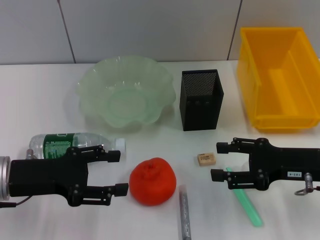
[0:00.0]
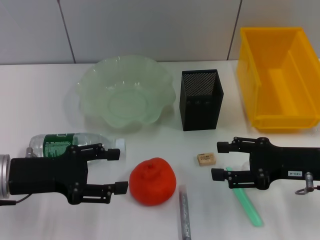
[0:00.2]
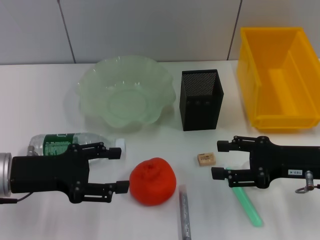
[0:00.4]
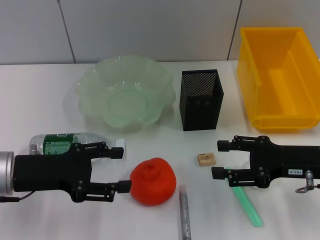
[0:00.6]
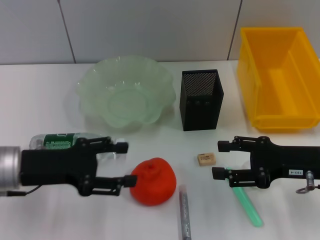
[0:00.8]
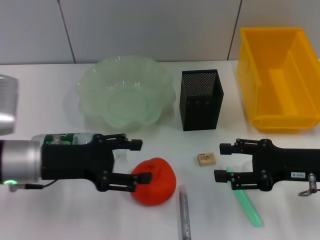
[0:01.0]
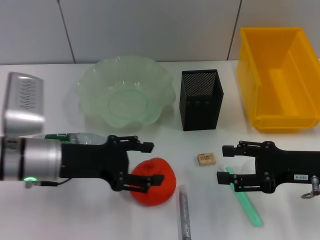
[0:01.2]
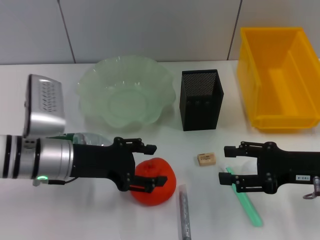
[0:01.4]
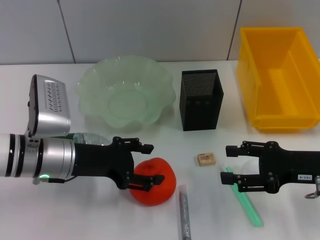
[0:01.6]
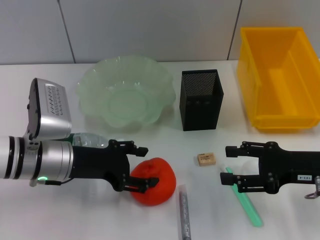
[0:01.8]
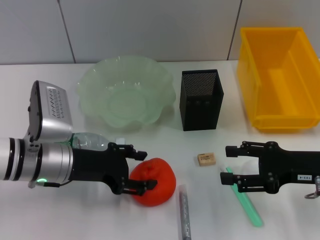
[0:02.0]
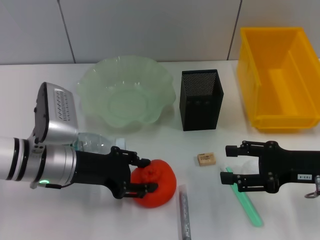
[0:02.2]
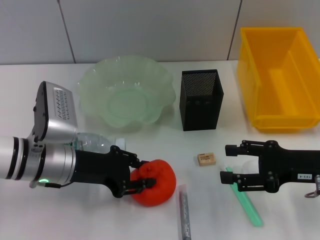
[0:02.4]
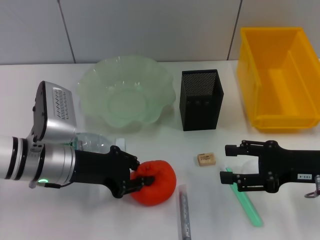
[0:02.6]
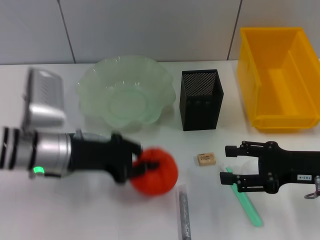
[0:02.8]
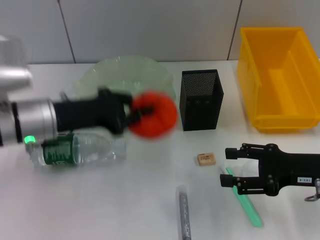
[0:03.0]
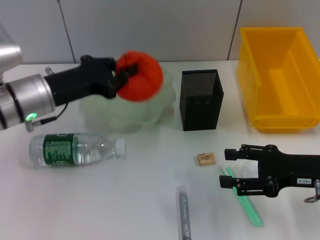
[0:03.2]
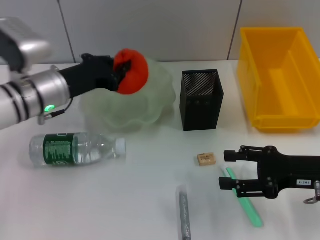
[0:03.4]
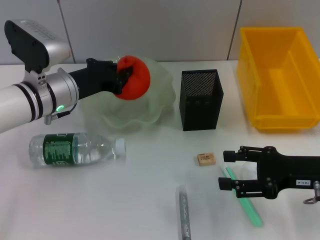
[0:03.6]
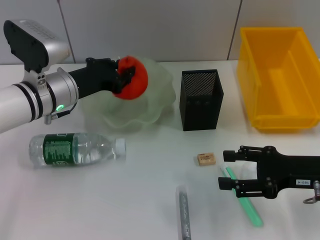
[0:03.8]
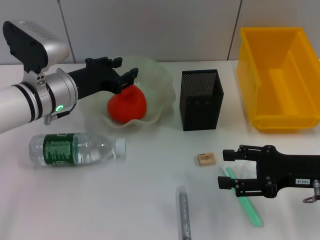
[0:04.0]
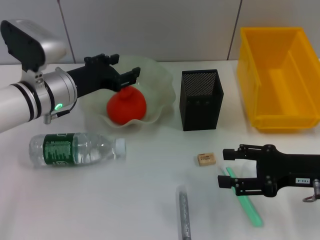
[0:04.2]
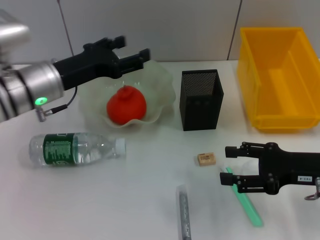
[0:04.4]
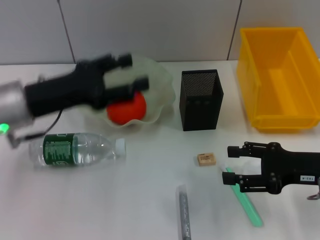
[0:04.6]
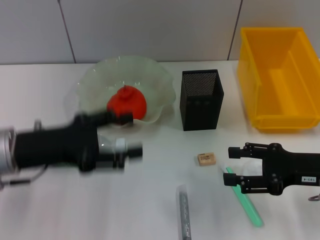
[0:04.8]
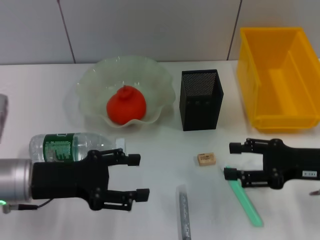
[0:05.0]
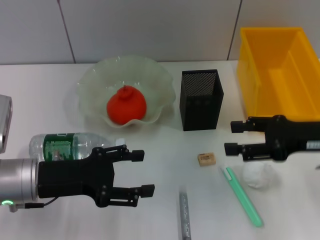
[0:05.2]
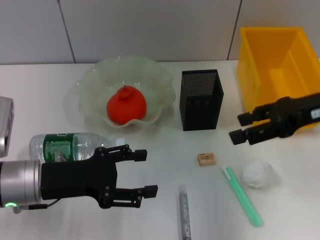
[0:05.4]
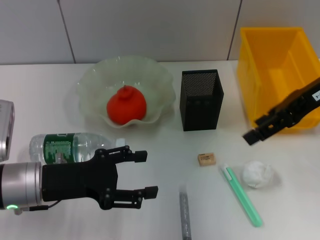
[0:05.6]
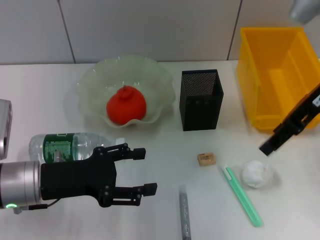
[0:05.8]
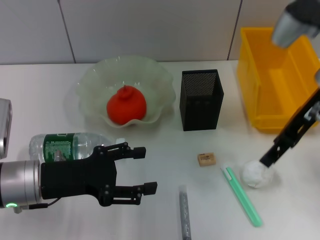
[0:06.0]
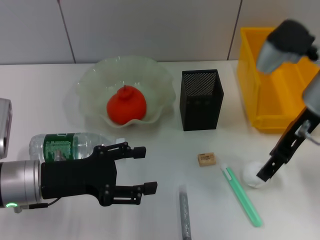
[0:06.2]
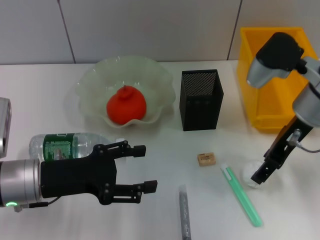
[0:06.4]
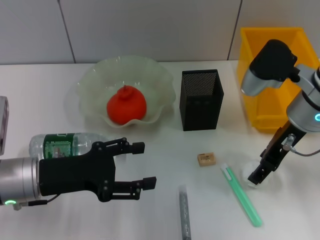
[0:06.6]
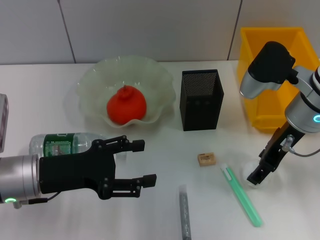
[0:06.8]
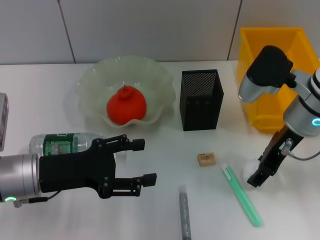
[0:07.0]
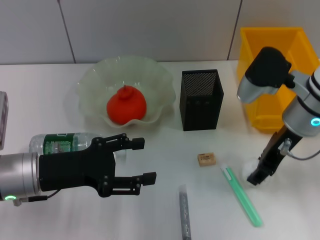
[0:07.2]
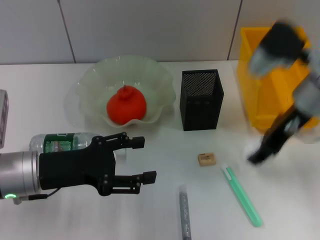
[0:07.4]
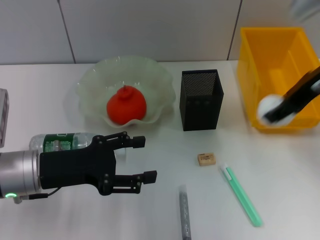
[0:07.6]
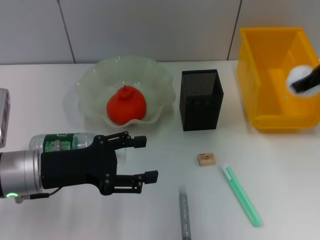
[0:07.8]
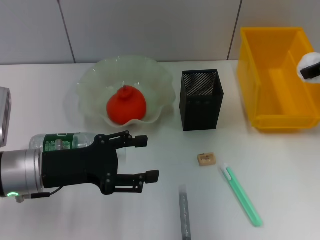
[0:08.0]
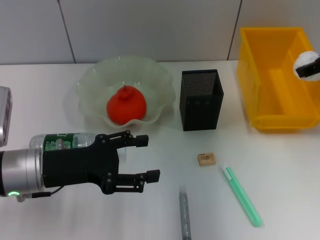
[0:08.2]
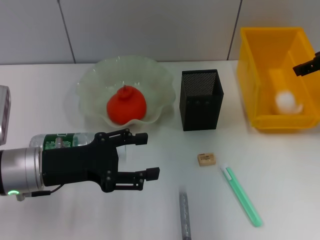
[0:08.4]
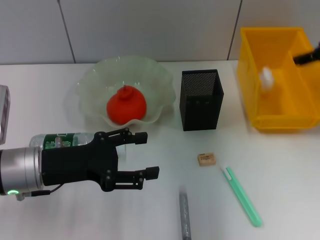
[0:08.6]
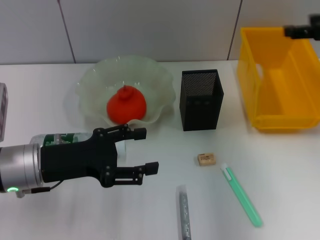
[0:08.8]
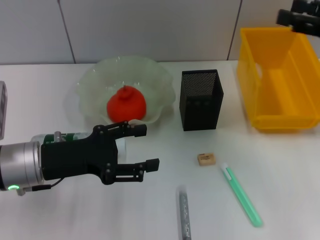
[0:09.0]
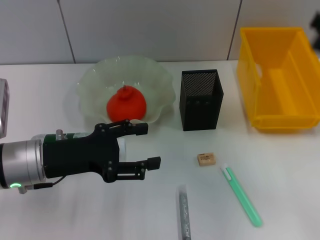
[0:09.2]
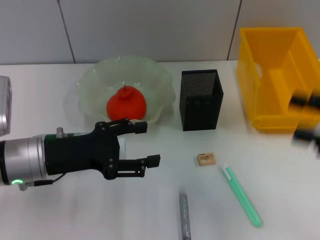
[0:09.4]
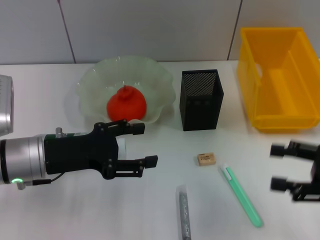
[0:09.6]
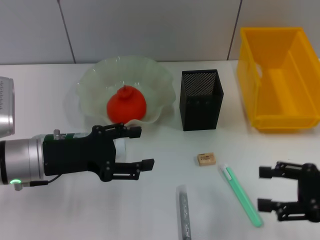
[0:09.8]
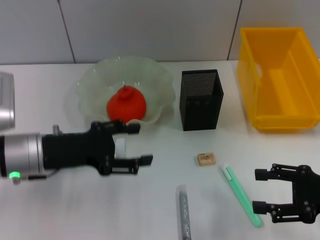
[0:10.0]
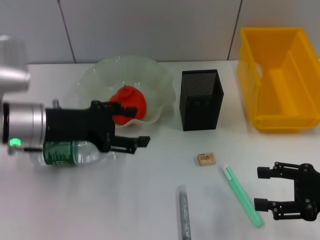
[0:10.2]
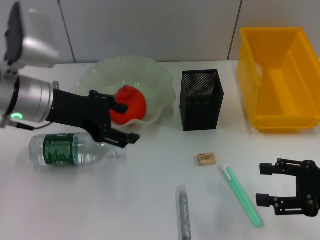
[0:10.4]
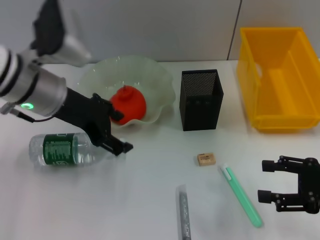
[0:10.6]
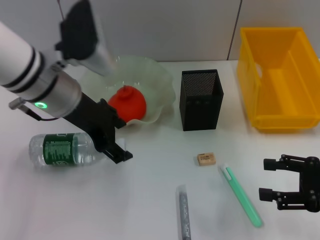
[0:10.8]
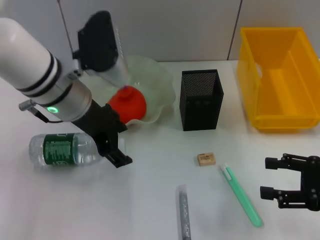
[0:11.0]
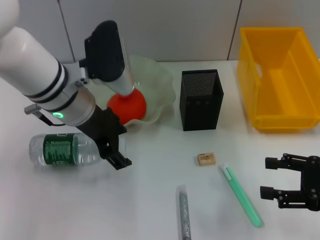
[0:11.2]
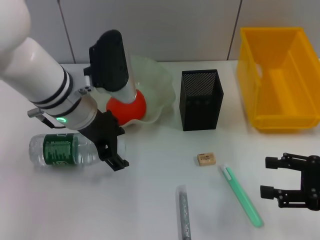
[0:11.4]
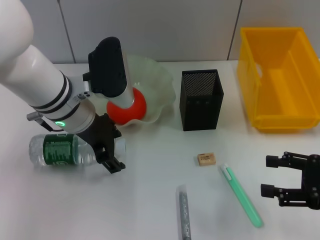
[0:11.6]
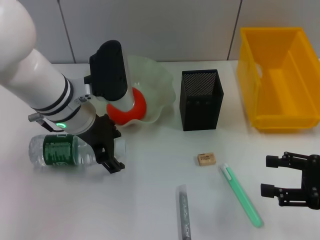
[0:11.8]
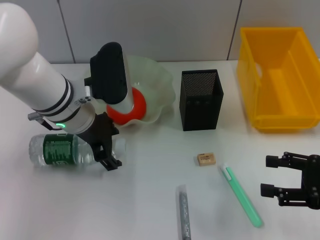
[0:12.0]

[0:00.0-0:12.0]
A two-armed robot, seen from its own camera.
Step, 0:00.0 to 0:02.4: Grab the orange with the left hand.
Step, 0:02.8 to 0:04.0: Place the orange into the fruit bowl with the left hand.
Step, 0:04.4 to 0:07.0: Grab the paper ball with the right hand.
Step, 0:07.2 to 0:09.0: Place the paper ball into the trash can with the right hand.
0:00.0 to 0:01.6: The left gripper is displaced to the right by some 5 cm.
0:01.6 to 0:03.0: The left gripper moves some 5 cm, and closes.
0:03.0 to 0:04.4: The left gripper opens up.
0:04.4 to 0:06.0: The left gripper travels backward and downward by some 10 cm. The right gripper moves upward, forward and to the left, approximately 15 cm.
0:06.0 to 0:07.6: The right gripper closes.
0:07.6 to 0:09.0: The right gripper heads to the right, covering approximately 10 cm, and opens up.
0:09.0 to 0:10.4: The left gripper shifts approximately 10 cm forward and upward; the right gripper heads downward and backward, covering about 15 cm.
0:10.4 to 0:12.0: The left gripper is displaced to the right by some 5 cm.

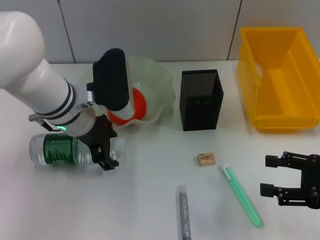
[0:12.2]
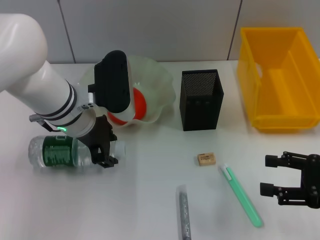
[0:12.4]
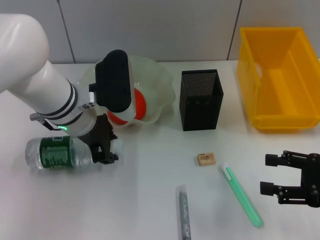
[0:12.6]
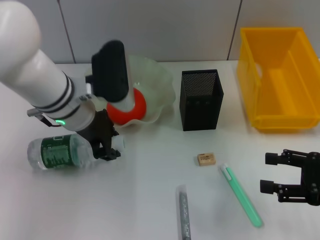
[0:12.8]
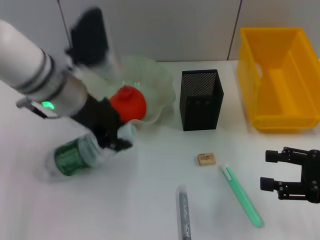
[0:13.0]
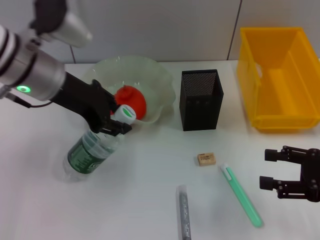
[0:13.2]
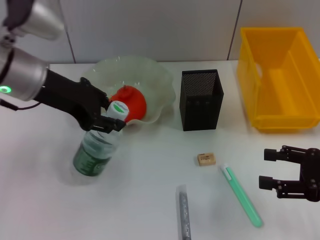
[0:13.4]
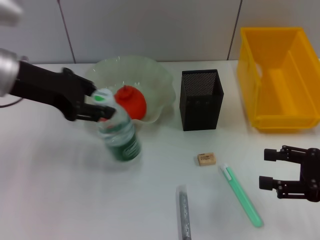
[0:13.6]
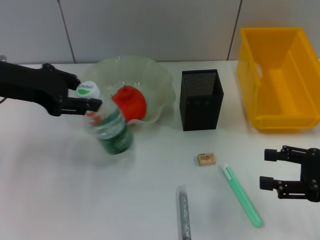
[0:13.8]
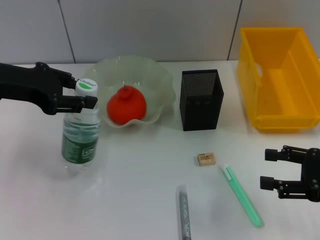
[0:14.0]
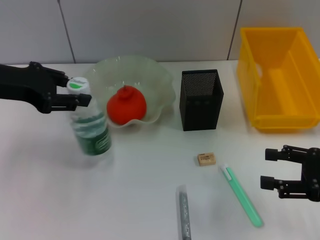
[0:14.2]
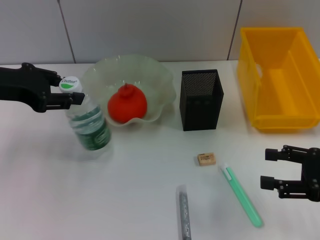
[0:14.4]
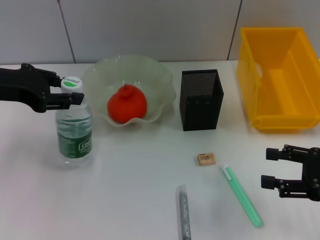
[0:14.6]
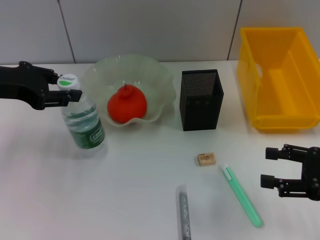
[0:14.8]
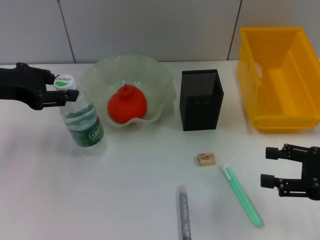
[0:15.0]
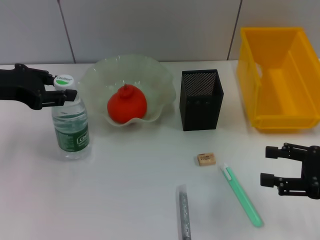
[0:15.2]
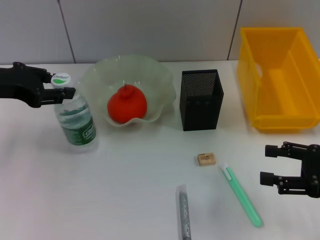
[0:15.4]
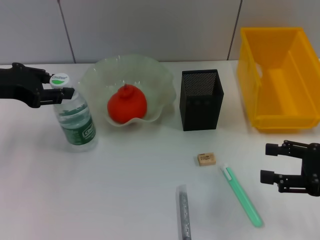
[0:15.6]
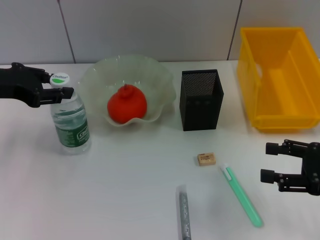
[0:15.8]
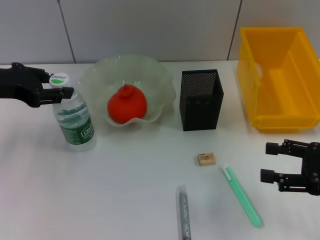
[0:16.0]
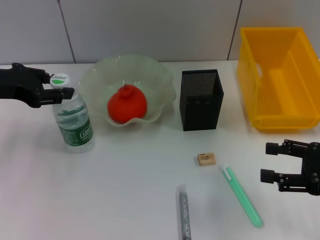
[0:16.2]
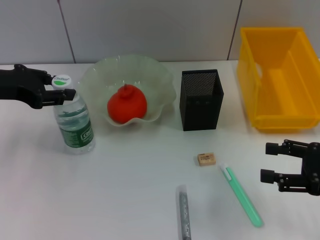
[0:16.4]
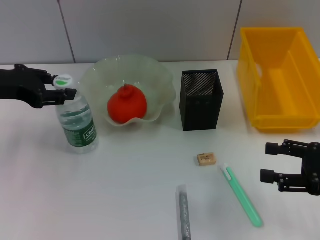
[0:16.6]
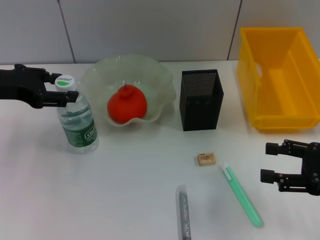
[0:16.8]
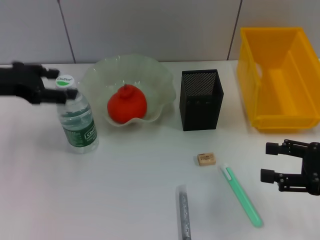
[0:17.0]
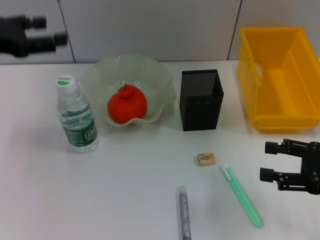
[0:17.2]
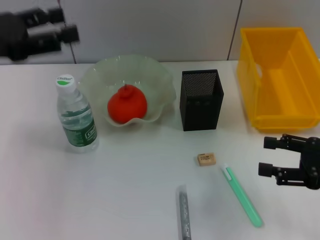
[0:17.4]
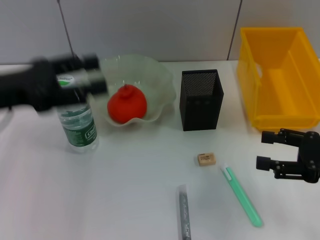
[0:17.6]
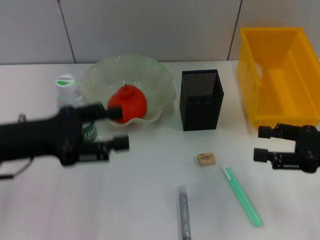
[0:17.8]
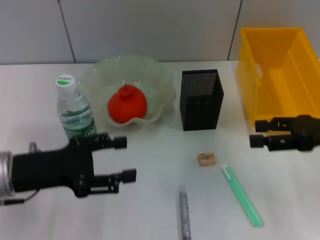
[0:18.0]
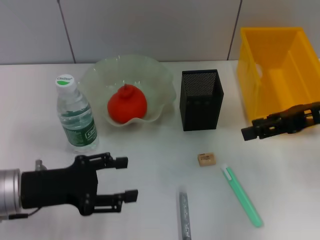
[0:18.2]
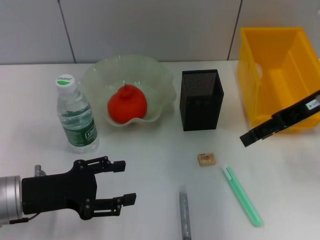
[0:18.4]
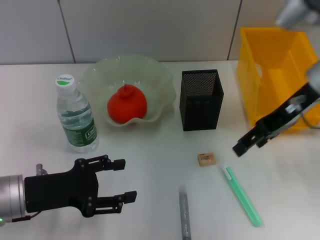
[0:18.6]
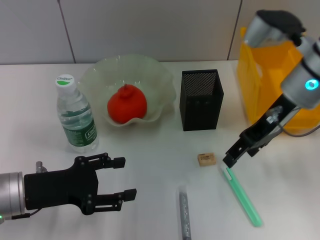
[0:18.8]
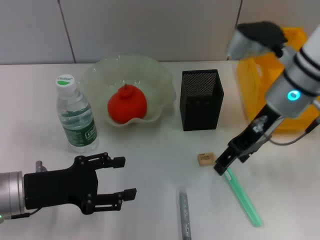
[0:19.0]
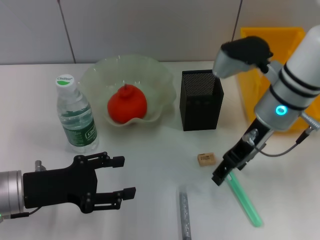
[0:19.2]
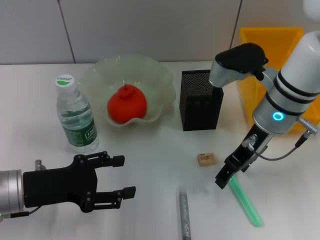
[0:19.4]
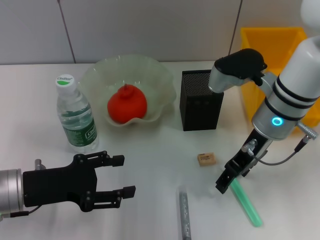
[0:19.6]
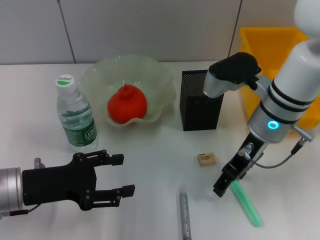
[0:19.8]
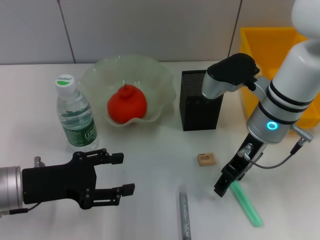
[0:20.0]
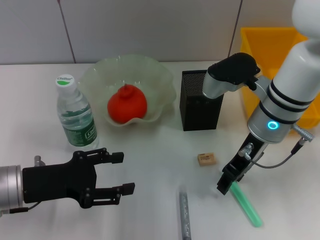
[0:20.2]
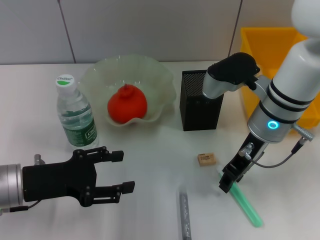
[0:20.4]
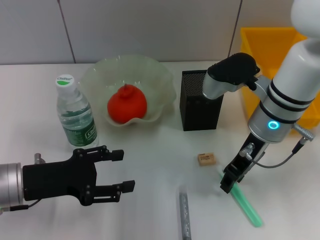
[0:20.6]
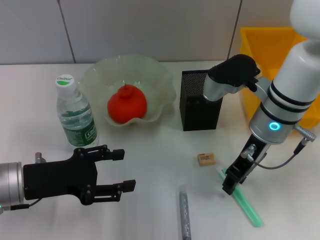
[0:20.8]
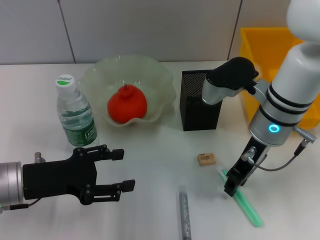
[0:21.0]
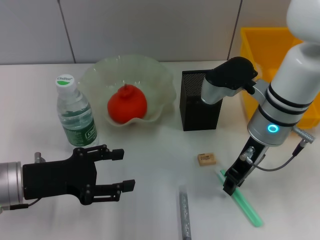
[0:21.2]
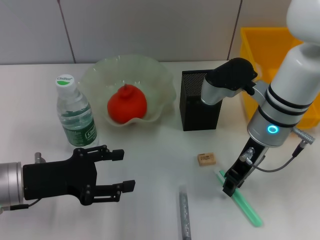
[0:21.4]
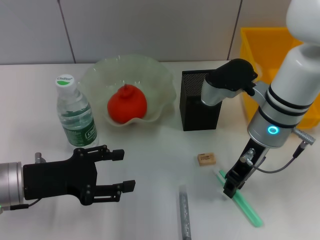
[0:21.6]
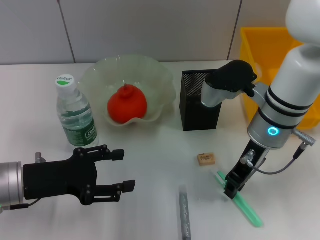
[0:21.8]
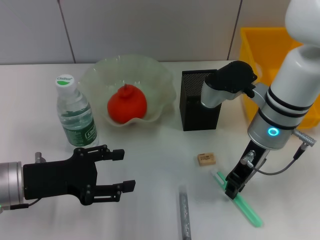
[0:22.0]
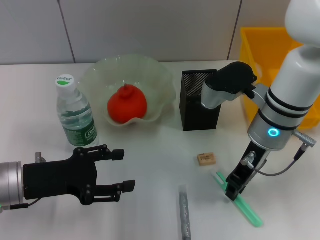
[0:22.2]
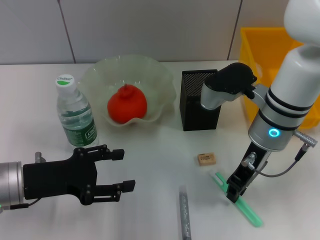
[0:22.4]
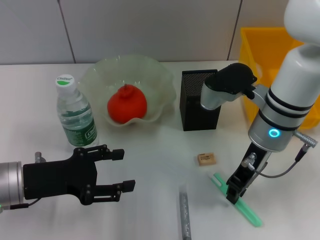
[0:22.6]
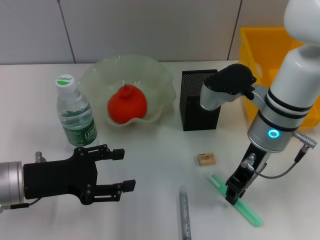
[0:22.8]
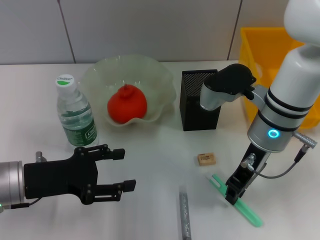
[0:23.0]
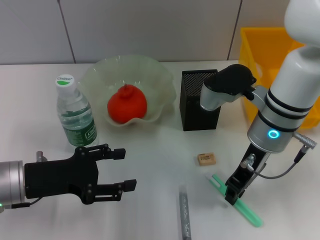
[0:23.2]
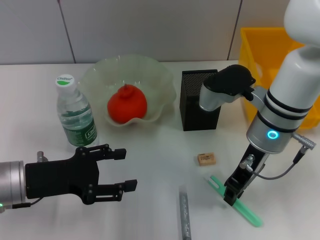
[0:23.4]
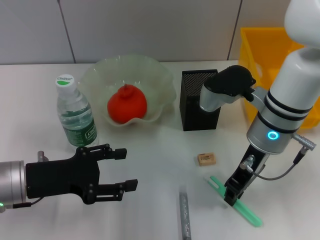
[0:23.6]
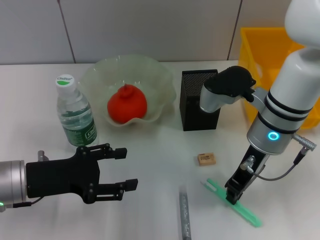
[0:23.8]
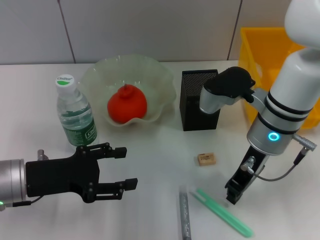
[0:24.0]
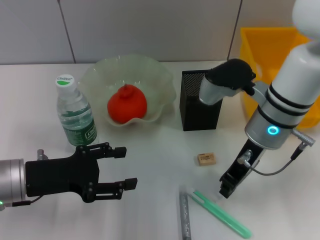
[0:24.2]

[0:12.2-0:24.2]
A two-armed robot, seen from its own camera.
Step, 0:12.8 to 0:17.0: Place the water bottle on the table with the left hand.
0:12.2 to 0:13.8: The left gripper moves to the left and upward, roughly 15 cm, and closes up.
0:13.8 to 0:15.2: The grippers make only small movements.
0:15.2 to 0:16.6: Both grippers stay put.
0:16.6 to 0:18.2: The left gripper shifts roughly 15 cm downward and backward, and opens up; the right gripper heads forward and upward, covering approximately 10 cm.
0:18.2 to 0:19.8: The right gripper shifts roughly 15 cm to the left.
0:19.8 to 0:21.2: The right gripper closes.
0:21.2 to 0:22.6: Neither gripper changes place.
0:22.6 to 0:24.2: Neither gripper changes place.
